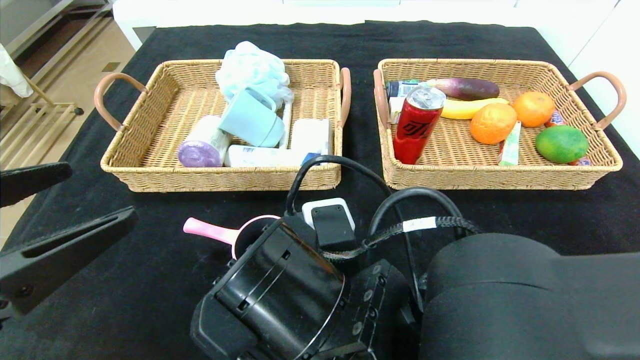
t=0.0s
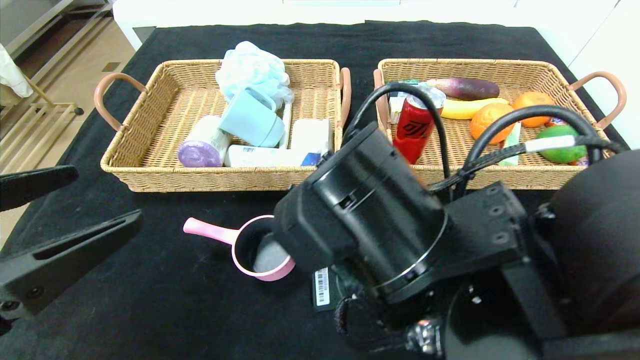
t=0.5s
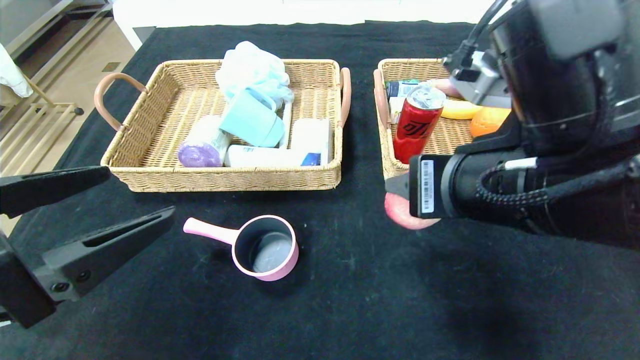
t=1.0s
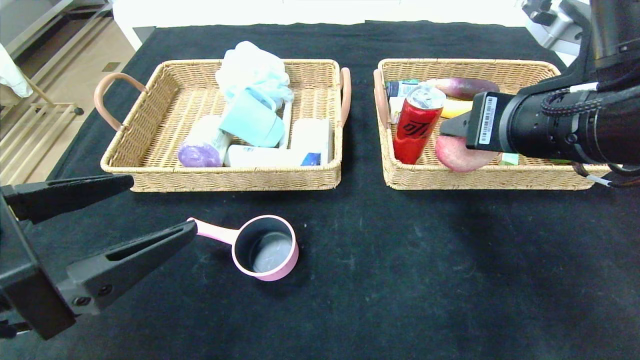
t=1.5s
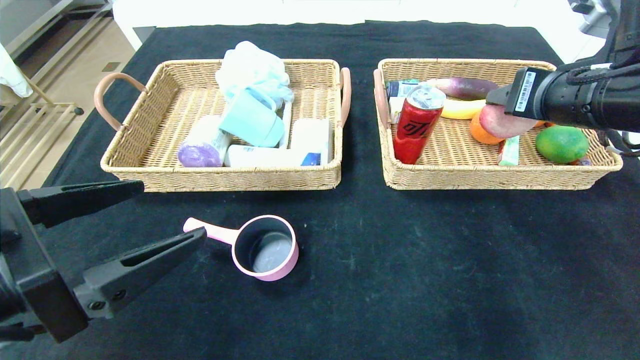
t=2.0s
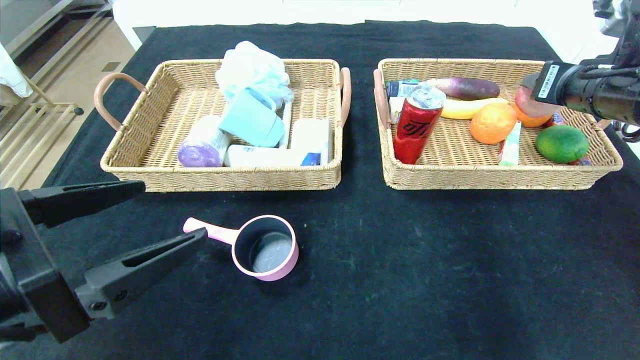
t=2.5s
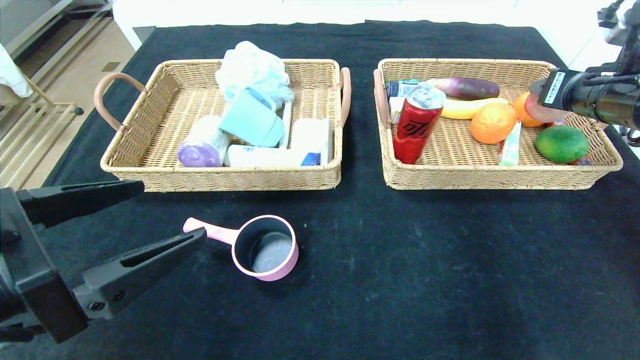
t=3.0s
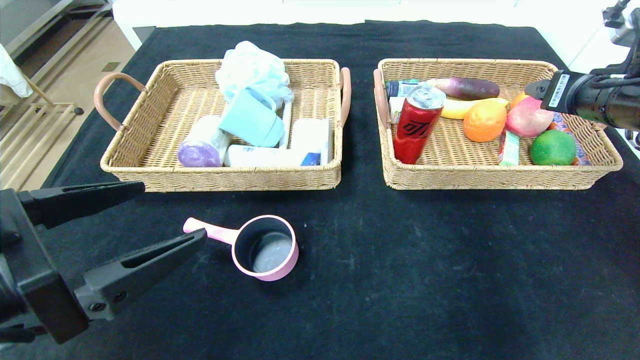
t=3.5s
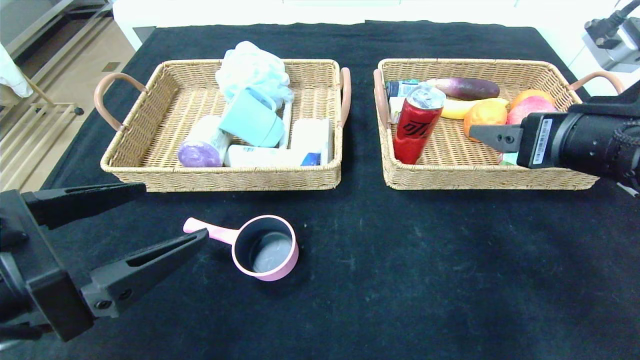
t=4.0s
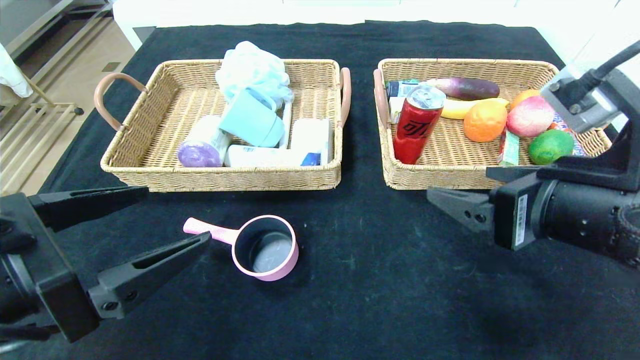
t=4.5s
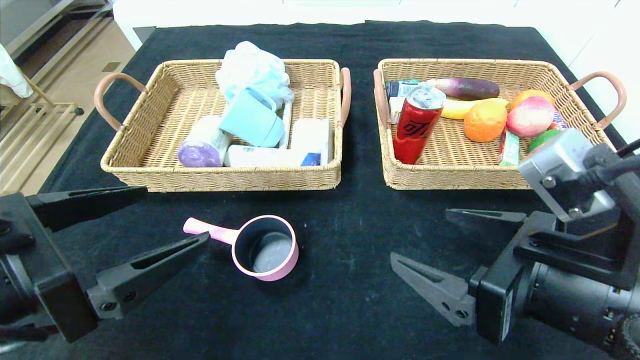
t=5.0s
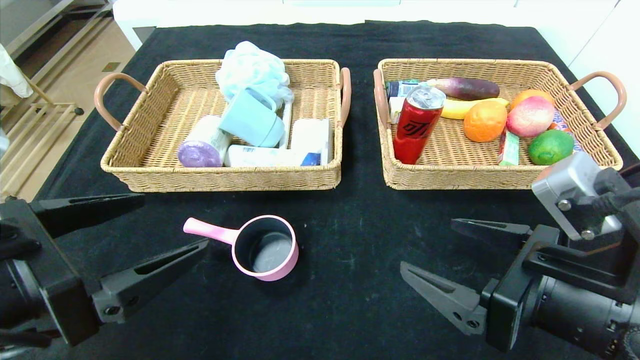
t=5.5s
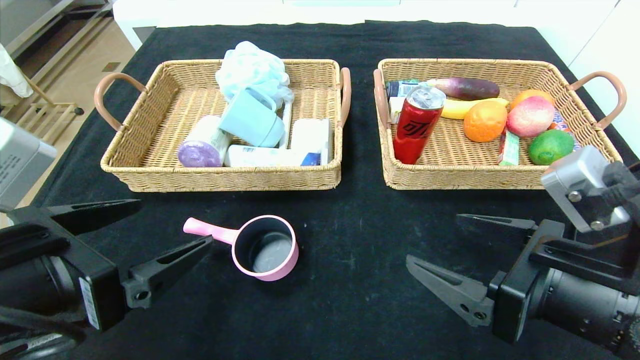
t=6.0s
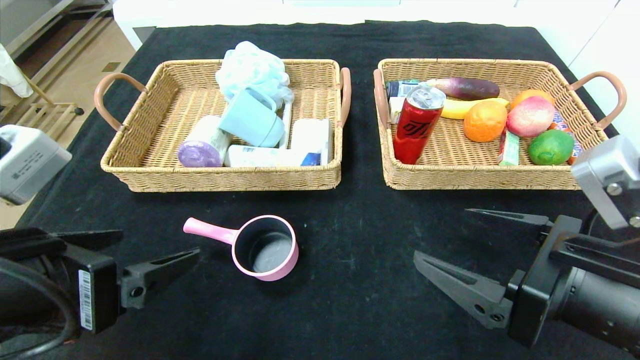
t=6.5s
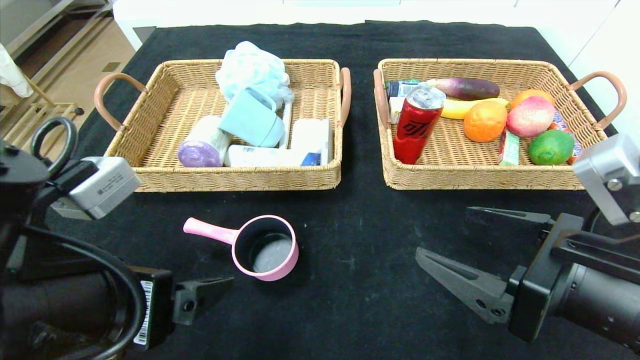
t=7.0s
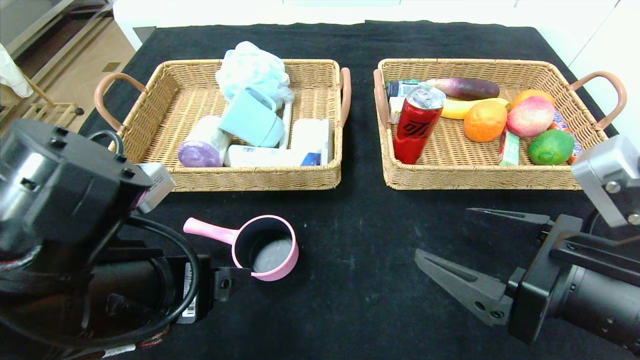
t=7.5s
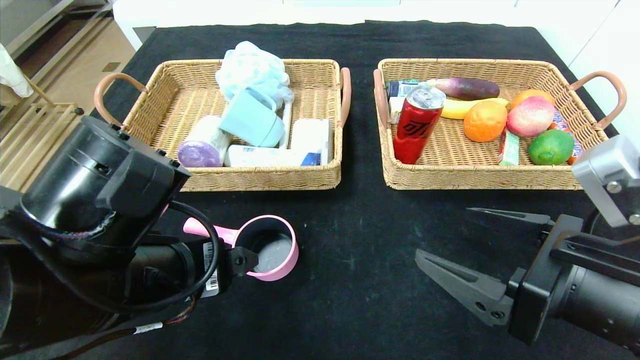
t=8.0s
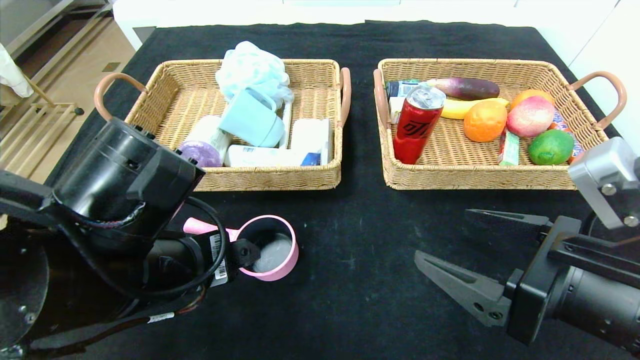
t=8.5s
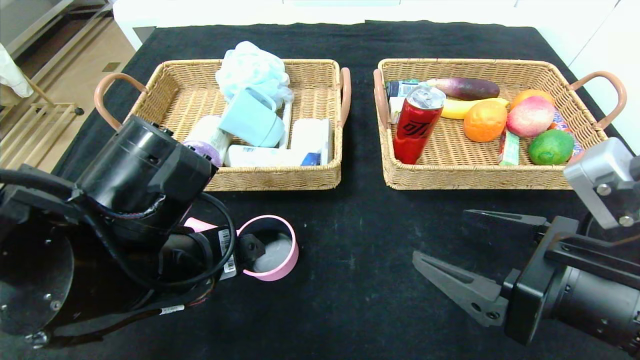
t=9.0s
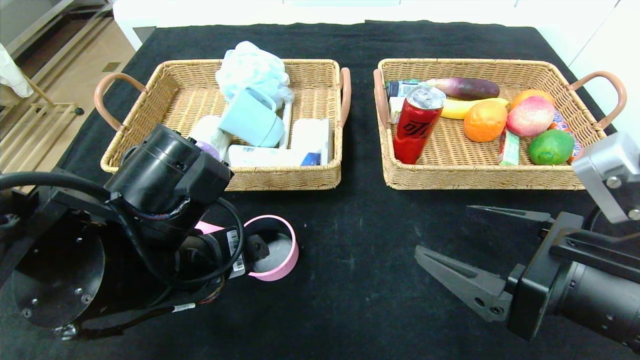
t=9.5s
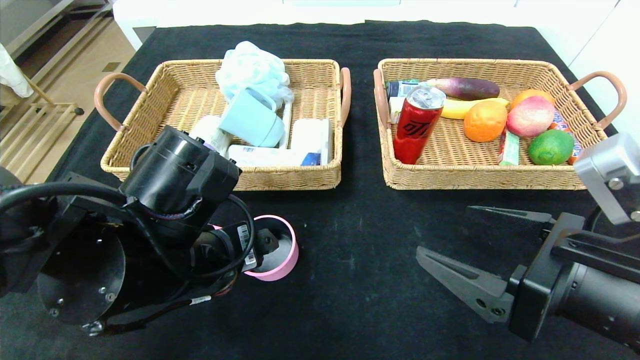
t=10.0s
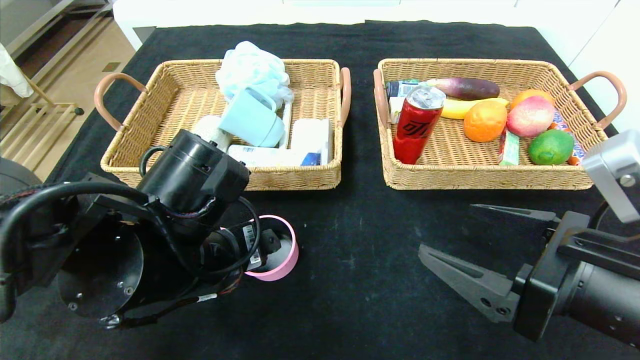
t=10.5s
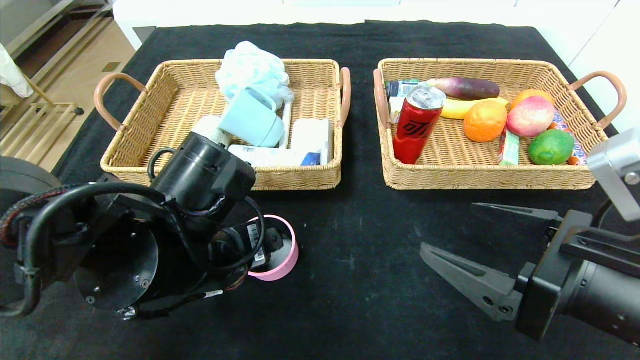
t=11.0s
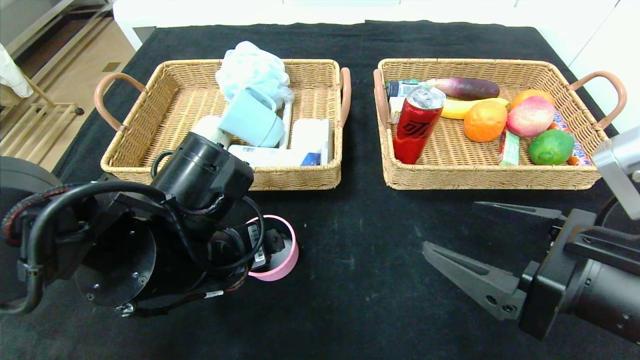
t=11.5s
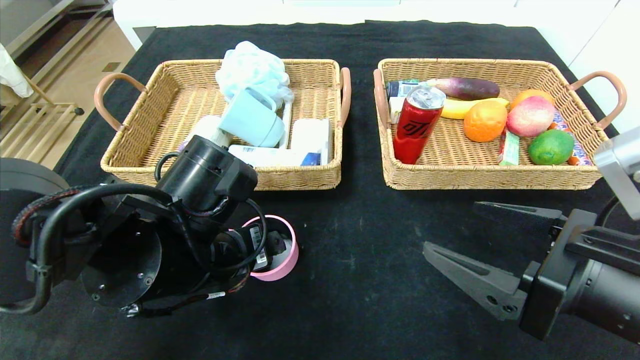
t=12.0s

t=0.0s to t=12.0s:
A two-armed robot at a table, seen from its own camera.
Step, t=0.0s to t=4.5s: Pick up the peach and put it in the right basket.
t=0.0s to t=2.0s: The right gripper goes some 30 cm to the right, upward and forward.
t=2.0s to t=4.0s: The right gripper travels backward by roughly 5 cm, and opens up.
t=4.0s to t=6.0s: The right gripper travels downward and backward by some 10 cm.
t=6.0s to t=8.0s: The left gripper heads to the right, covering about 5 cm.
t=8.0s to t=12.0s: The grippers make only small movements.

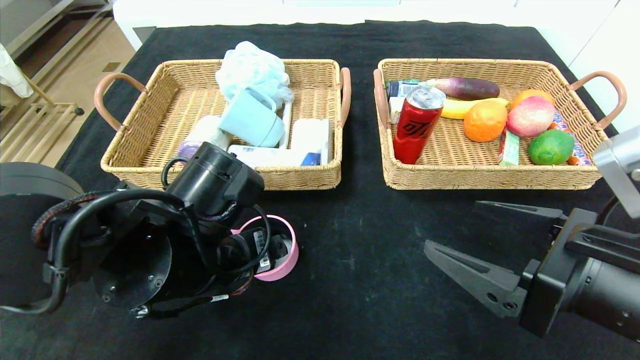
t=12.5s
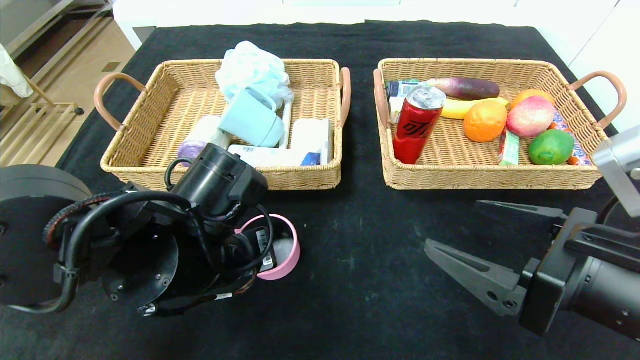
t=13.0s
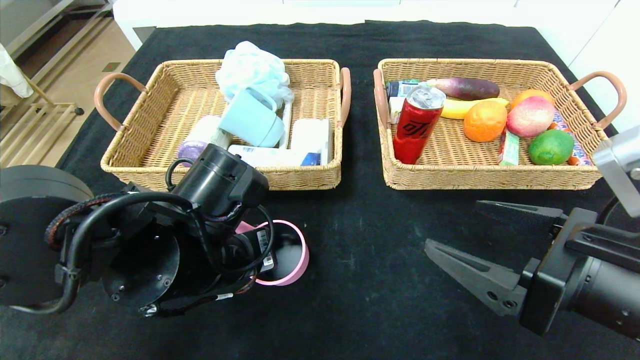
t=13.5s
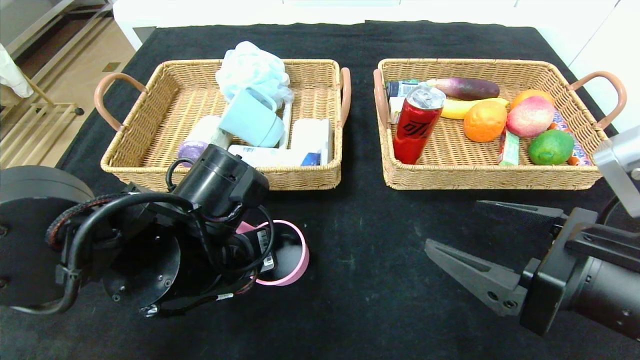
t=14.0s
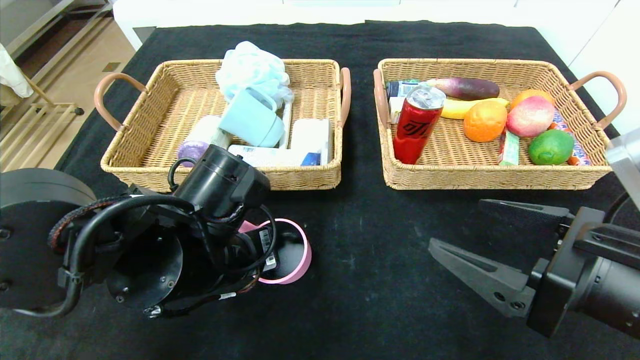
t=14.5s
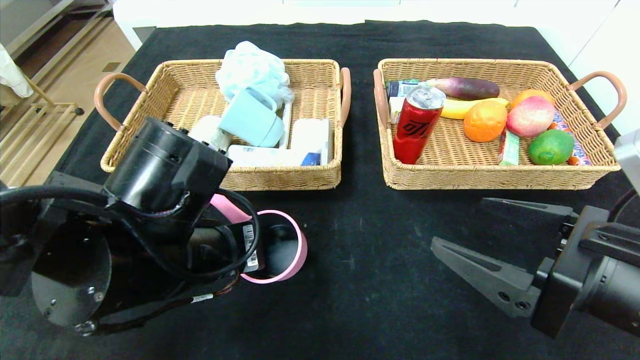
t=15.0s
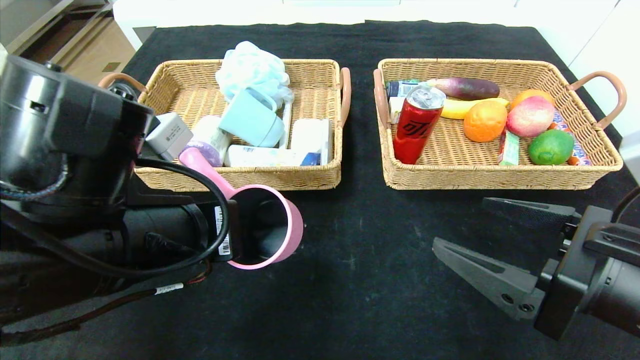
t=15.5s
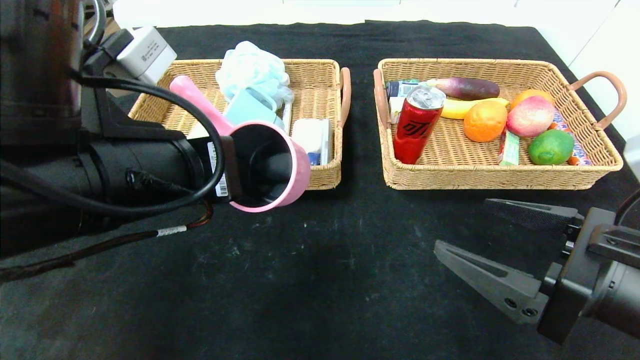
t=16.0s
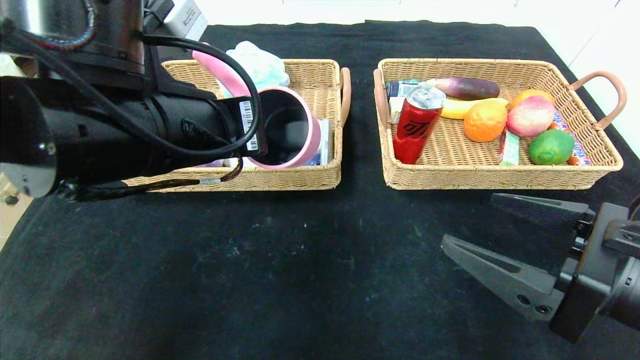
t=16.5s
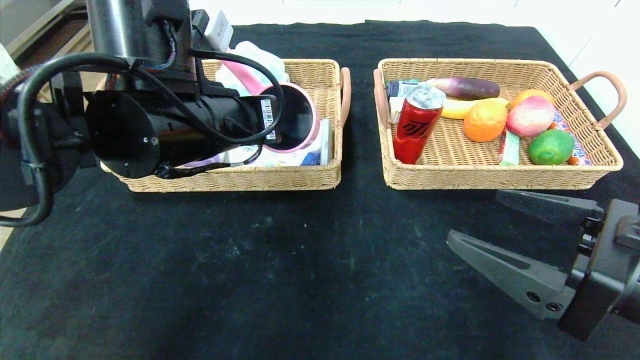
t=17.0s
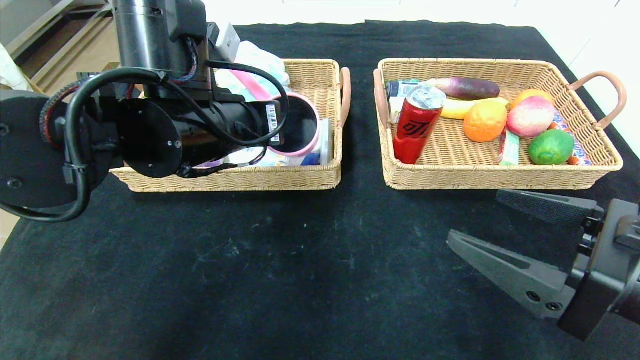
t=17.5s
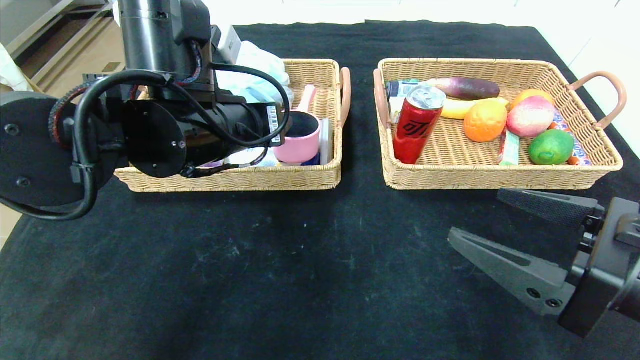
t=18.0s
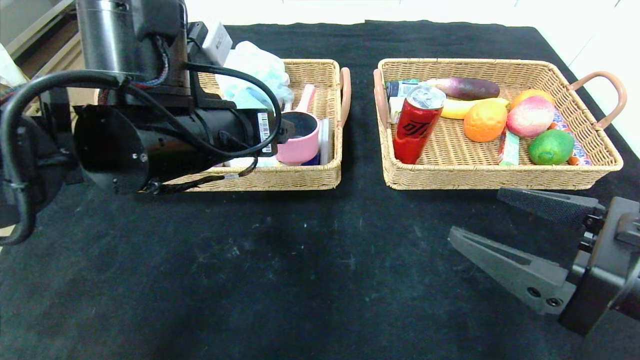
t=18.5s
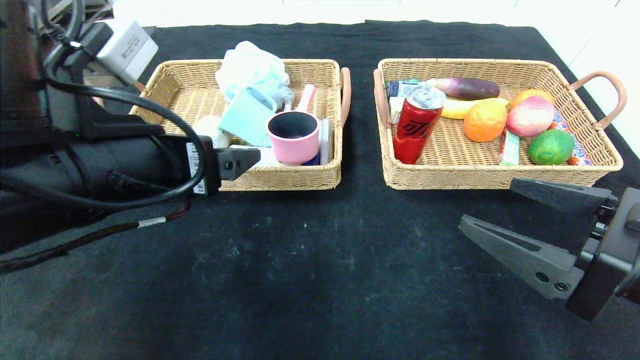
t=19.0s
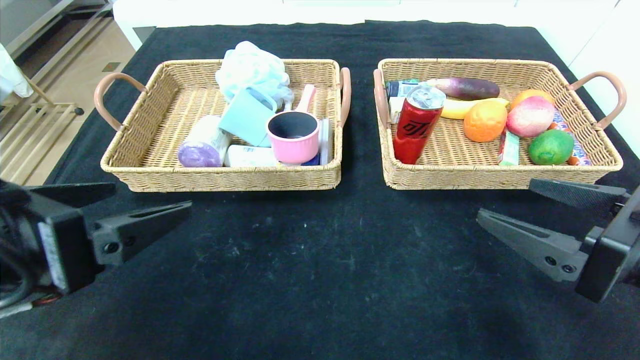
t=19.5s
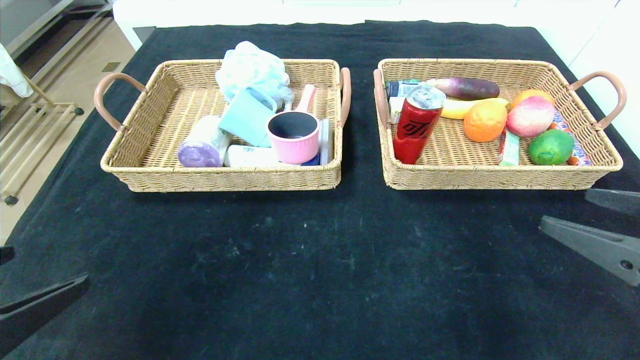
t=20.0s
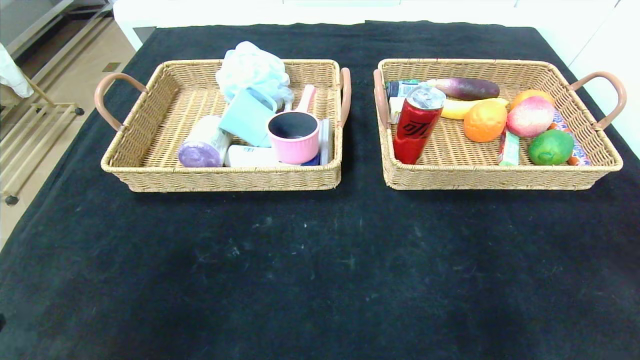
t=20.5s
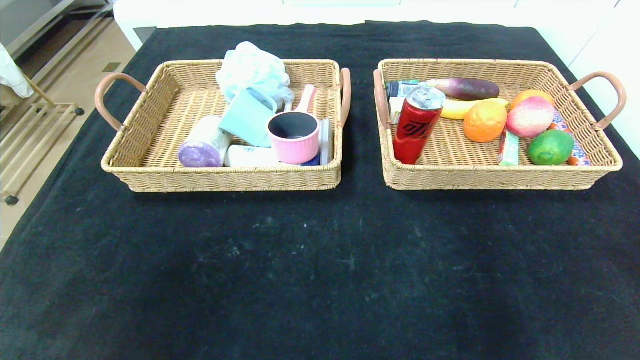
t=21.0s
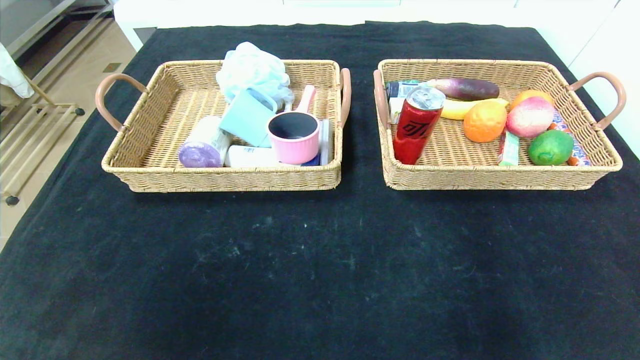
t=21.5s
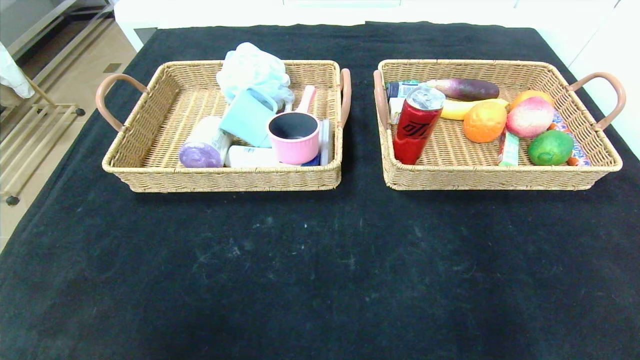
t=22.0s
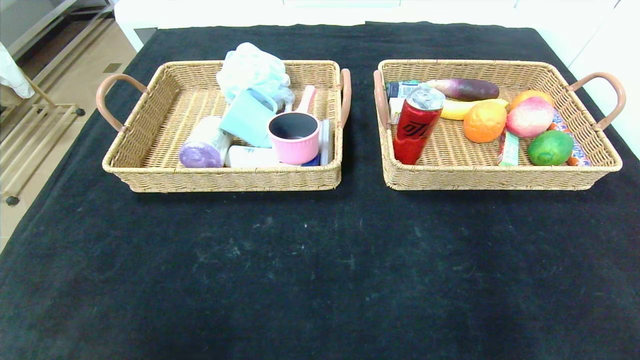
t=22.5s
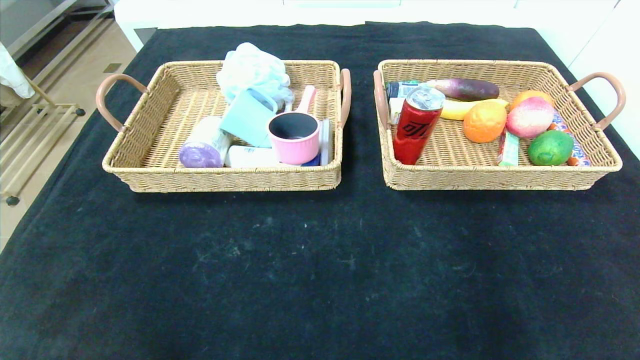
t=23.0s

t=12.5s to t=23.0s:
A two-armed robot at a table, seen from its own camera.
Step, t=12.5s to t=20.5s: Pick up the pink pot and put it in the left basket.
t=12.5s to t=14.5s: The left gripper closes.
t=14.5s to t=16.5s: The left gripper shifts roughly 10 cm upward.
t=16.5s to t=19.0s: The left gripper moves roughly 5 cm, and opens.
t=19.0s to t=21.0s: The left gripper heads backward and to the left, covering some 25 cm, while the right gripper goes roughly 20 cm backward and to the right.
t=21.0s to t=23.0s: Both grippers travel together downward, approximately 20 cm.
